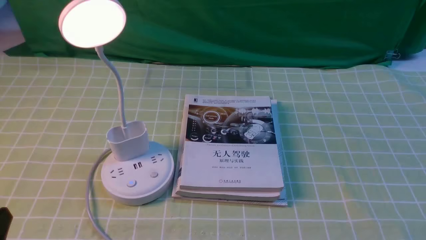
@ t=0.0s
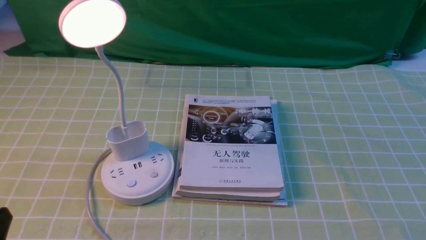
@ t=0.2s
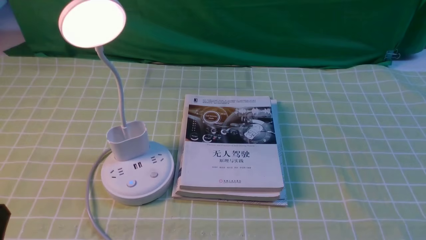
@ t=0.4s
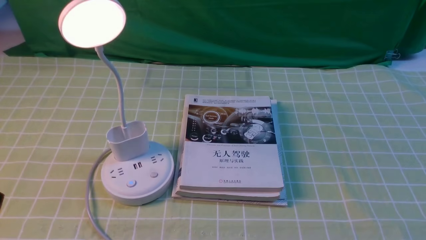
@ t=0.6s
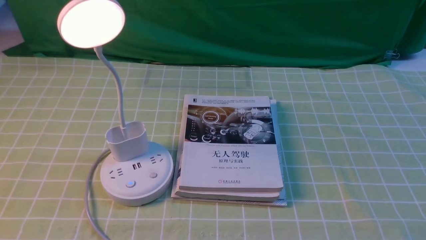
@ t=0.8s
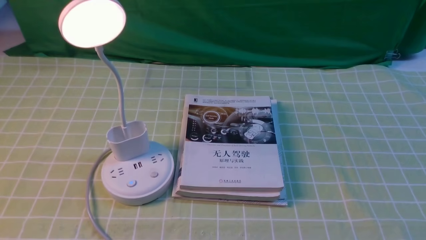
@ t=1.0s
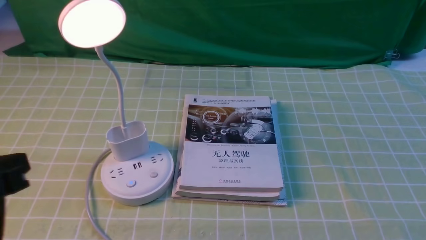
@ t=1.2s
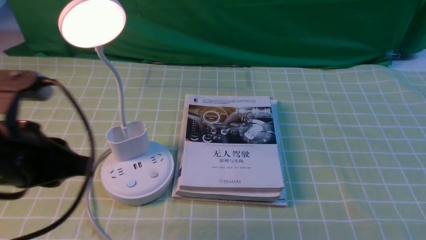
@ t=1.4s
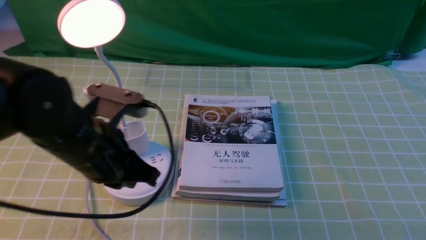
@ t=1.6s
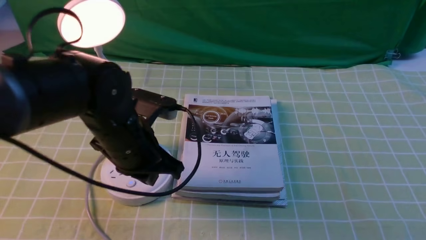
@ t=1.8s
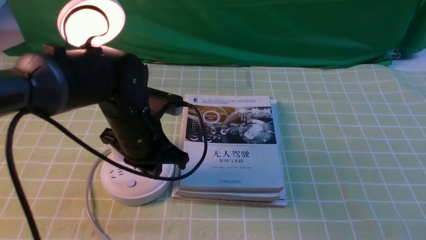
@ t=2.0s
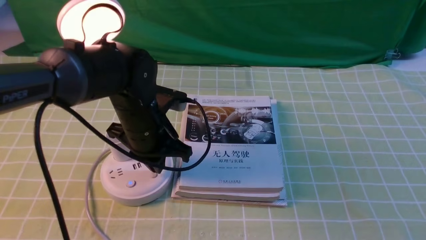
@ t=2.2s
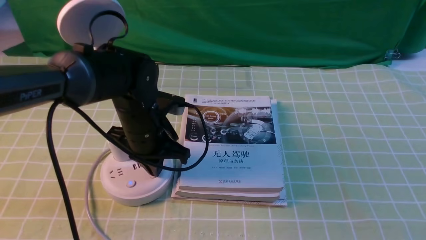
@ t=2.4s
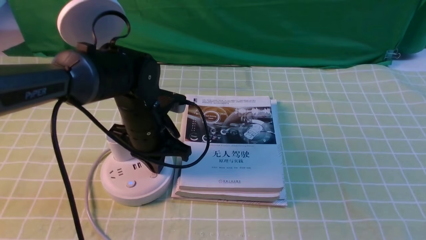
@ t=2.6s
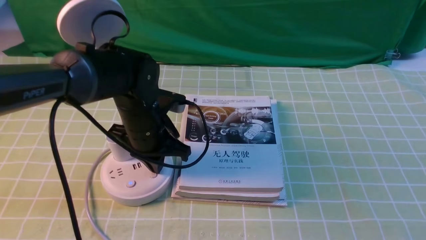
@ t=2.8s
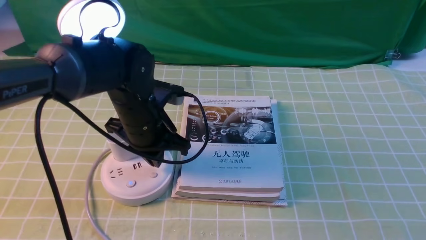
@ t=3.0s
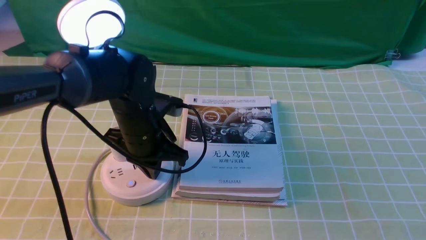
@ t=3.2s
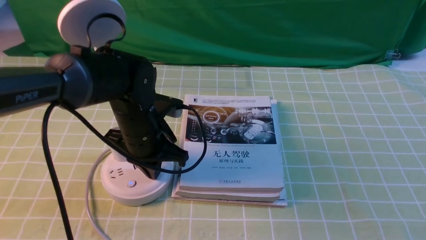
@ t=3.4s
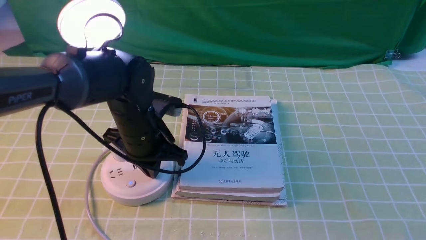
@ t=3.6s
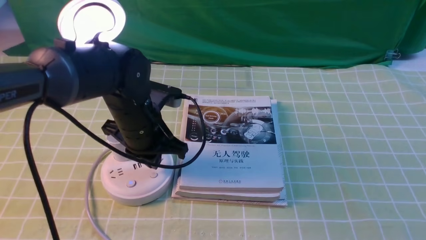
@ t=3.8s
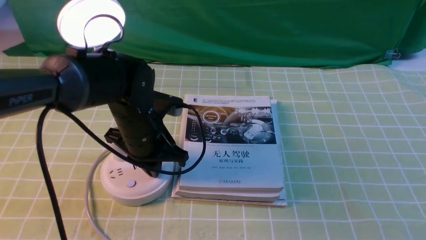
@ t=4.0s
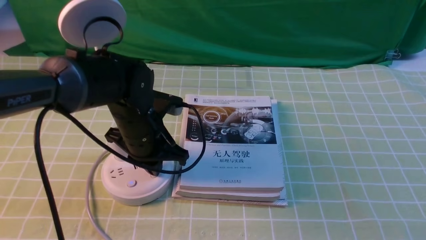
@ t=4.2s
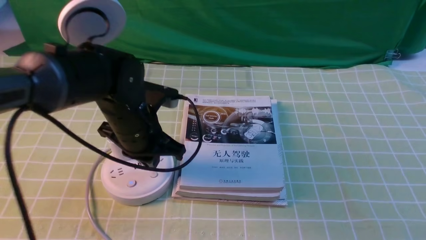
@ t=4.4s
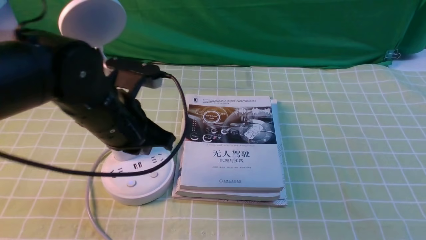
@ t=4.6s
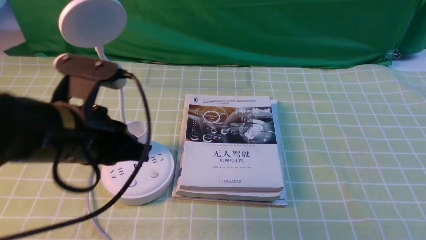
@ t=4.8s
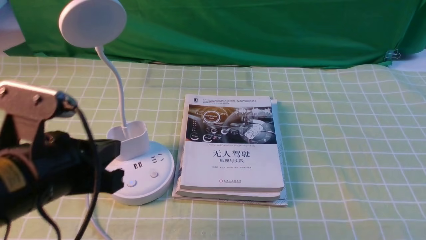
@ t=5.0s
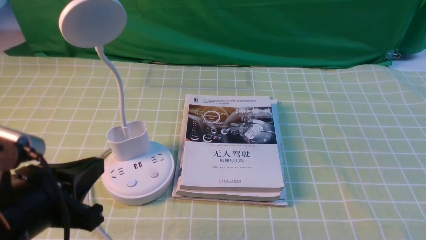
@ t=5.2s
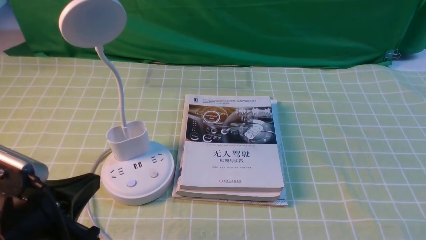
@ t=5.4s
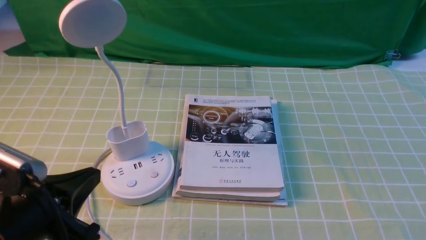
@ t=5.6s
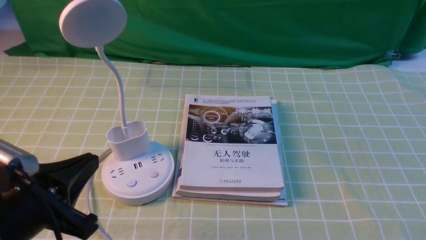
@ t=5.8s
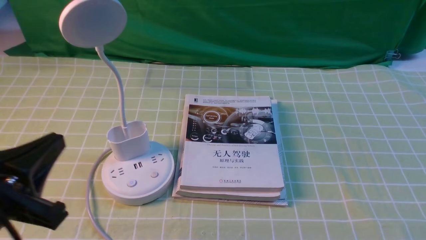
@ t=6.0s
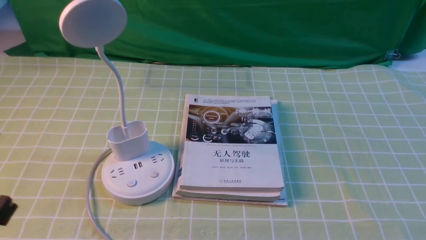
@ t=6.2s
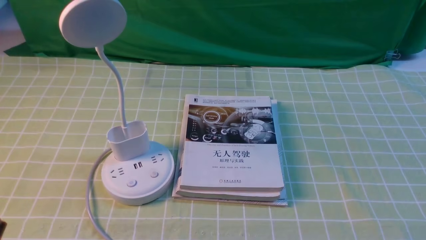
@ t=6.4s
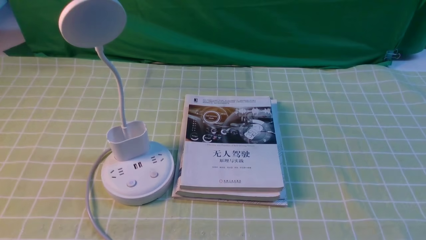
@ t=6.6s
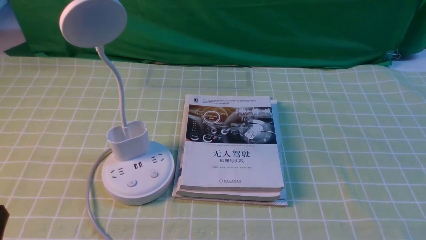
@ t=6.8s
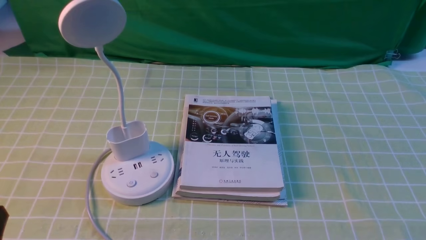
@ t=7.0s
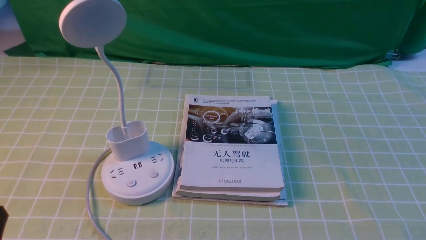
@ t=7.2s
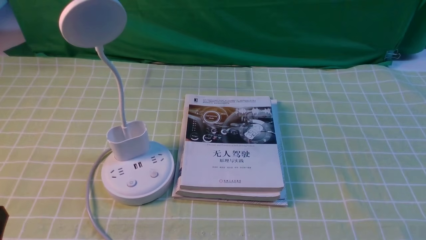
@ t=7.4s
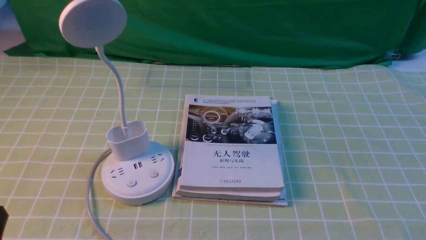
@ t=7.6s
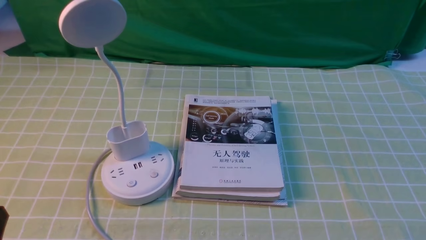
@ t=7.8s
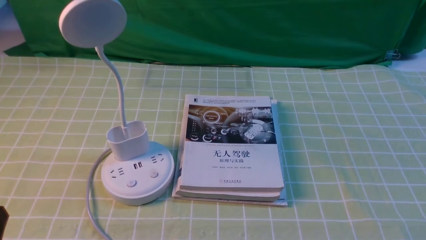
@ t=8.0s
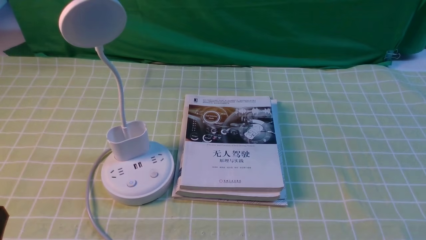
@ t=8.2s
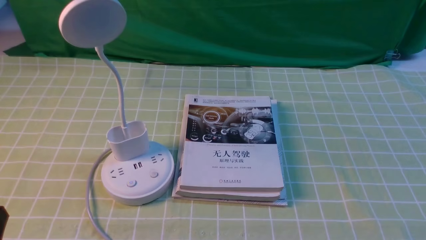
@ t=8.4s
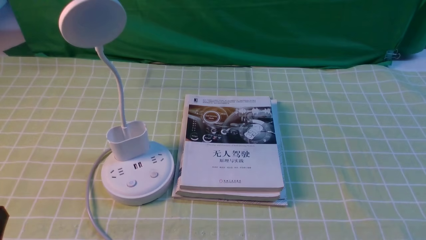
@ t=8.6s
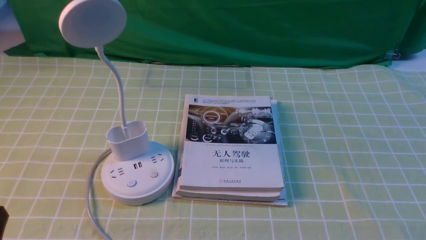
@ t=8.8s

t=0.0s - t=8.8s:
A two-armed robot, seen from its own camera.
Task of the whole recording: turn off the desk lamp on the green coffee tablecloth by hand.
Step, t=0.0s - t=4.6s: use the left arm to press the button switch on the lamp holder.
t=1.4s - t=3.0s: The left gripper heads forward, to the right and downward, covering roughly 25 cm, and closes.
t=3.0s - t=4.4s: The grippers make only small movements.
t=4.4s - t=5.8s: The left gripper goes roughly 20 cm backward and to the left.
t=5.8s - t=7.4s: The left gripper shifts approximately 10 cm backward, to the left and downward.
t=7.4s - t=8.8s: Both grippers stay put.
